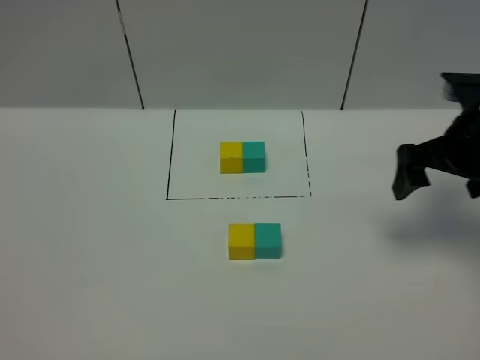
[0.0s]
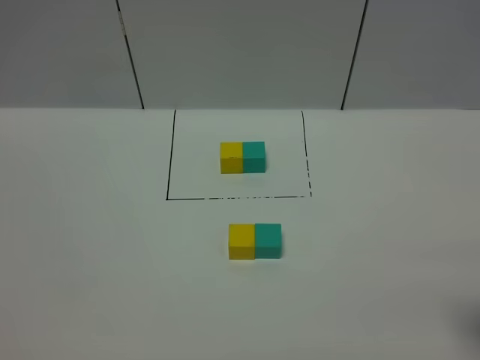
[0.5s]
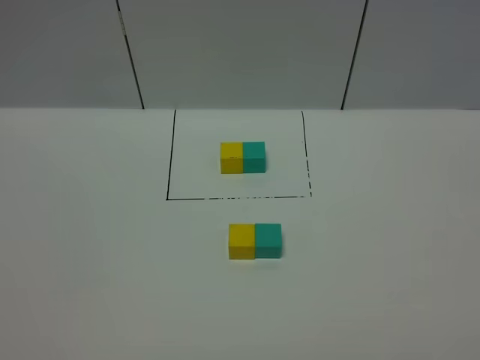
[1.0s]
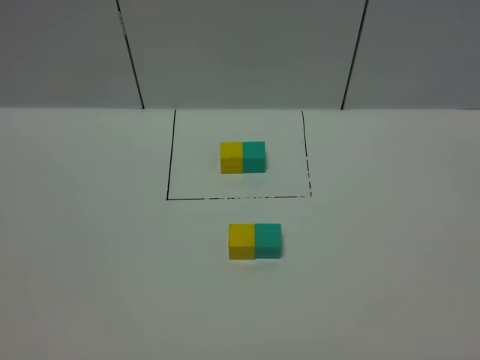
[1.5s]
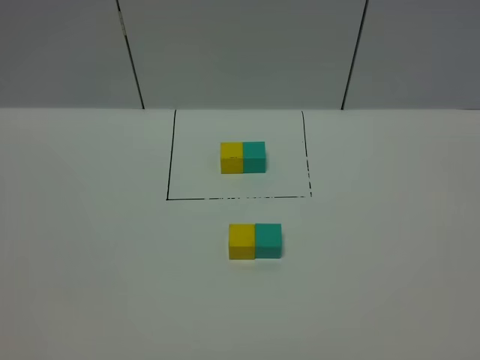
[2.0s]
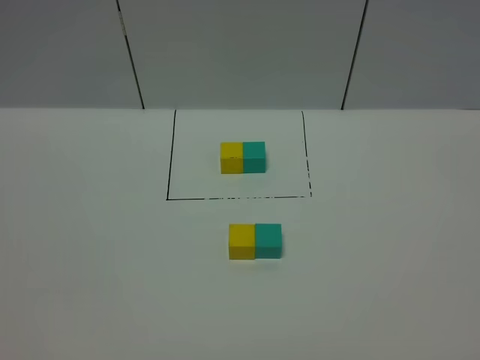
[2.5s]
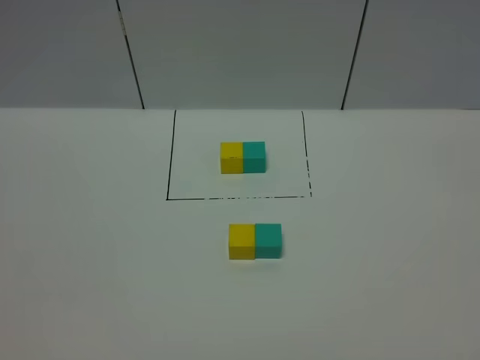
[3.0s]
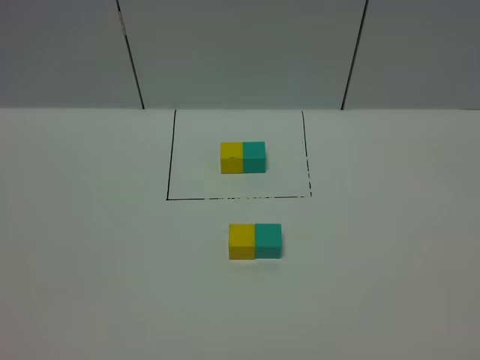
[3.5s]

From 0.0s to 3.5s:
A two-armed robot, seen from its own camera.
Task of the whole recording: According to the building block template in front, assemble the scattered blocks together.
From 0.0s to 2.0s: The right gripper travels backward by some 35 cm.
From 2.0s to 3.5s: Both grippers stay put.

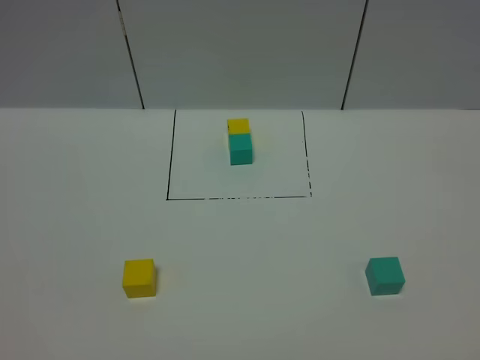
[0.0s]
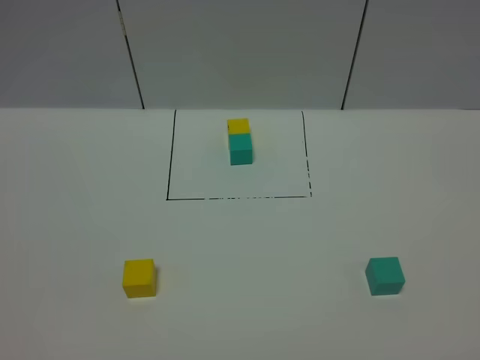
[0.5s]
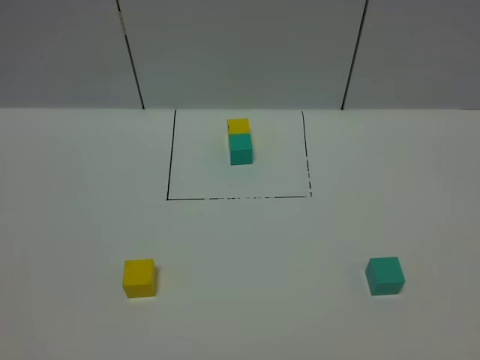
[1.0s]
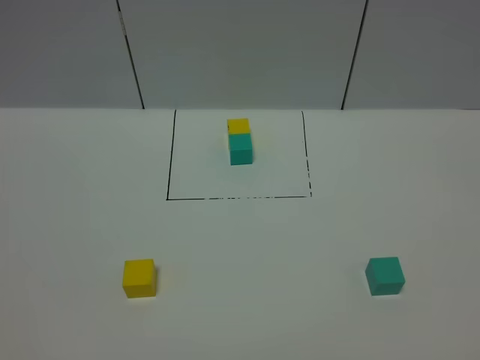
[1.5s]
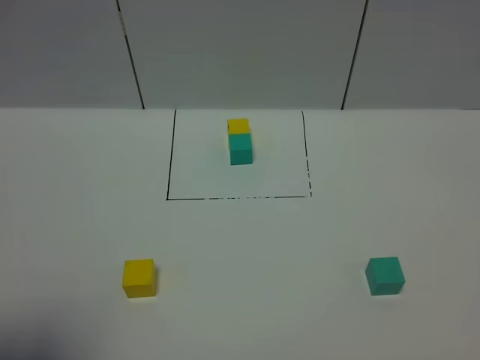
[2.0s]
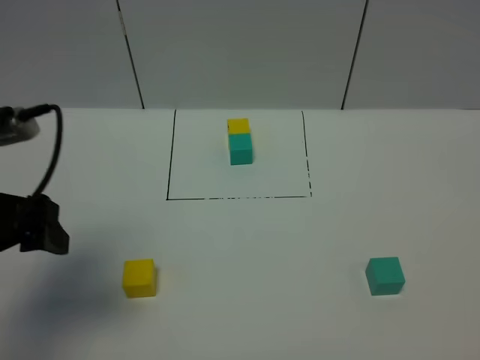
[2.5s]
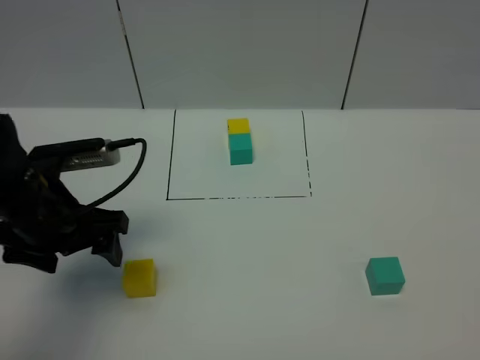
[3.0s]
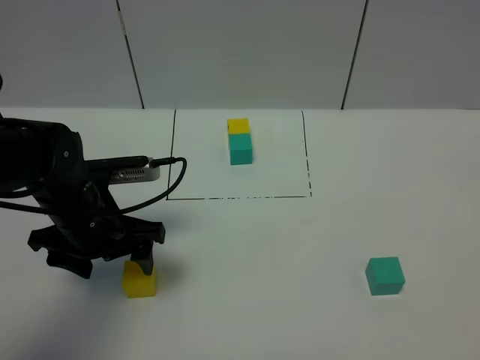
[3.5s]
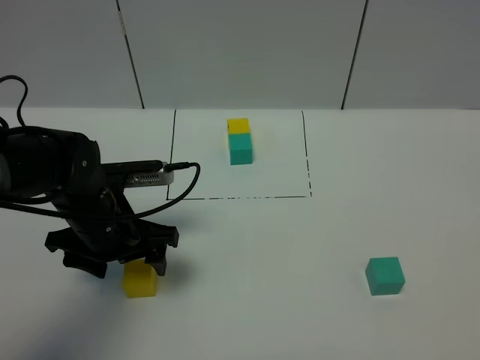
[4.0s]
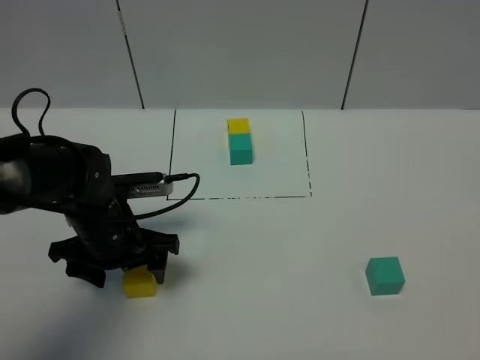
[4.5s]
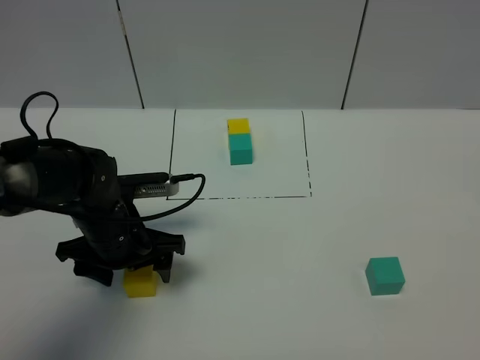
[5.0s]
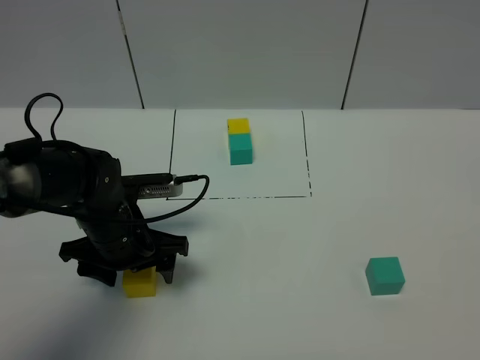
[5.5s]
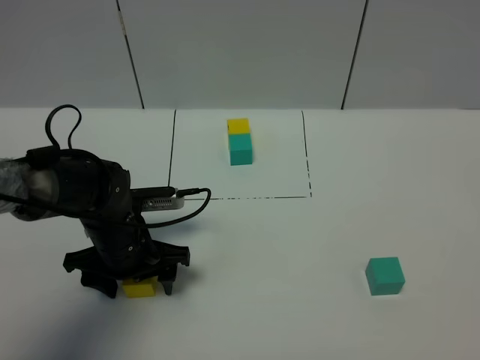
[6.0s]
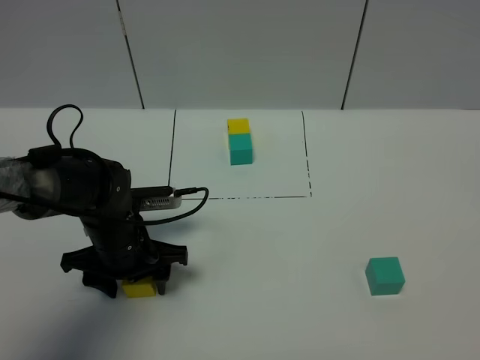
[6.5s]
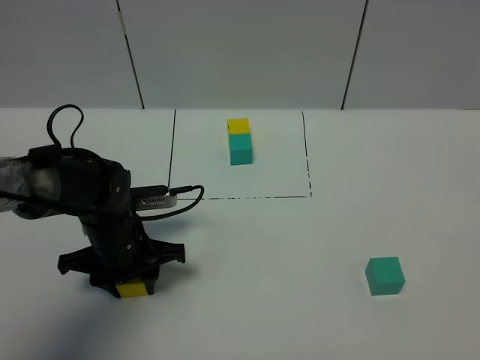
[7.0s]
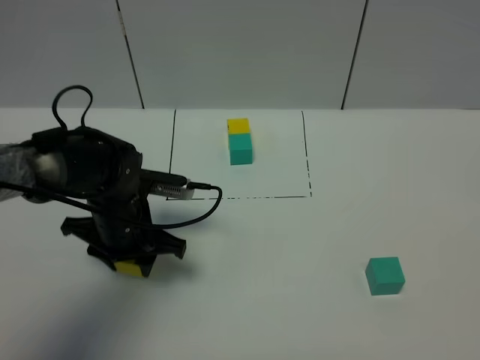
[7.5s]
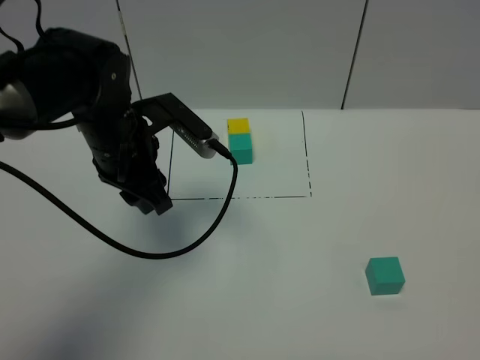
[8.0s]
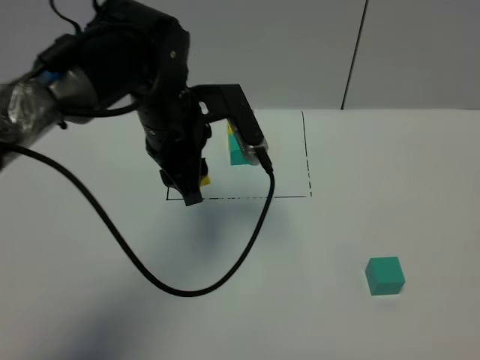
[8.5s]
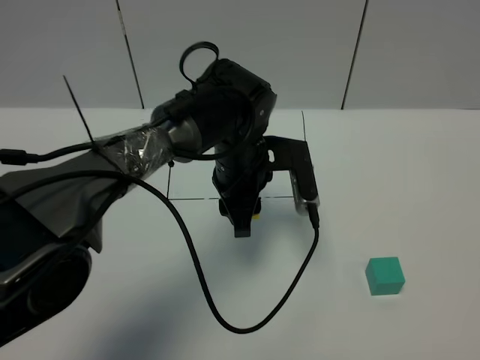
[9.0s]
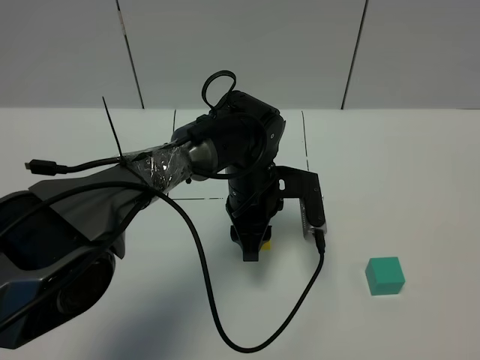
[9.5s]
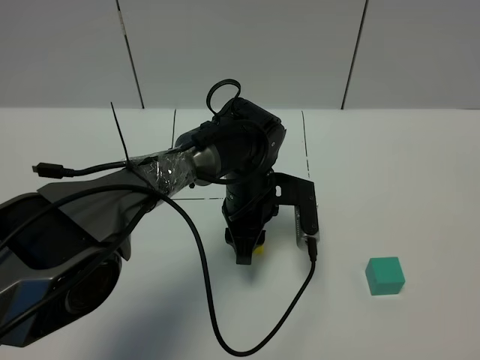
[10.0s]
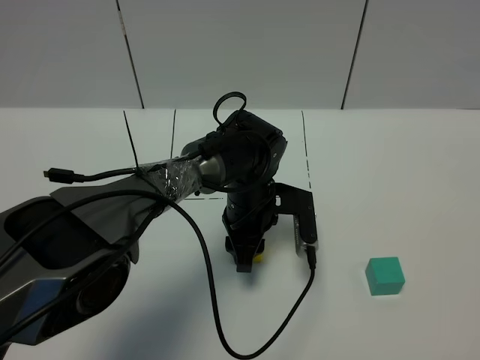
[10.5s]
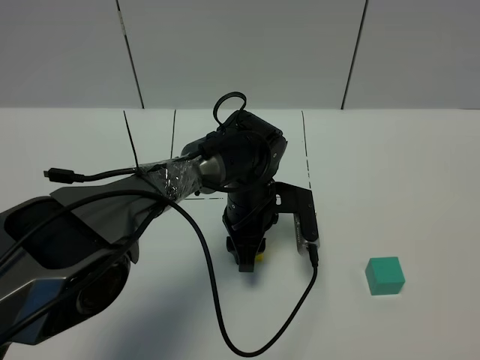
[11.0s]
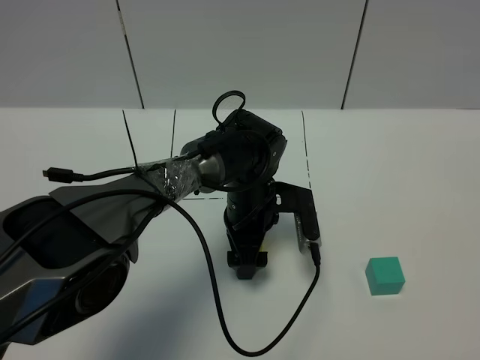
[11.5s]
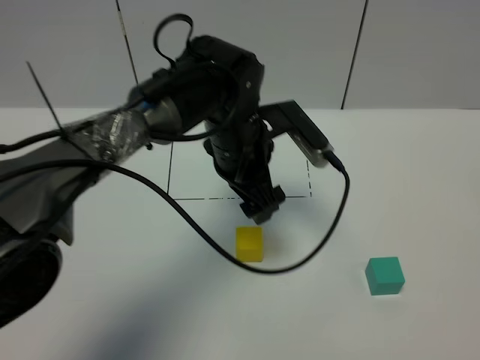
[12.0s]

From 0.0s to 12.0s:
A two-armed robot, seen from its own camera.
Task of the whole recording: According to the building block template in front, assemble the scattered blocks together.
Step, from 2.5s to 11.0s: Put the yellow cube in the center of the table.
From 0.0s to 2.0s: The left gripper moves forward and upward, some 15 cm.
From 2.0s to 4.0s: The left gripper is displaced forward, downward and to the right by some 30 cm.
From 4.0s to 6.0s: The left gripper is displaced downward by about 5 cm.
From 6.0s to 8.0s: The left gripper moves upward, some 15 cm, and closes.
From 8.0s to 10.0s: The left gripper travels to the right and downward by some 20 cm.
From 10.0s to 12.0s: The left gripper goes some 10 cm upward, and opens up.

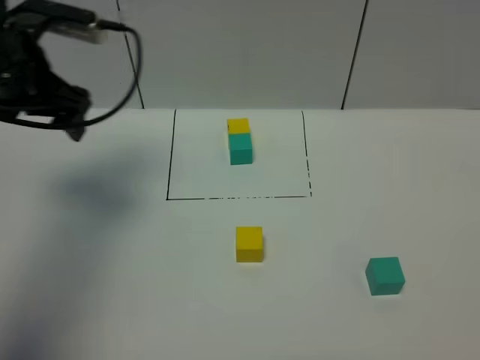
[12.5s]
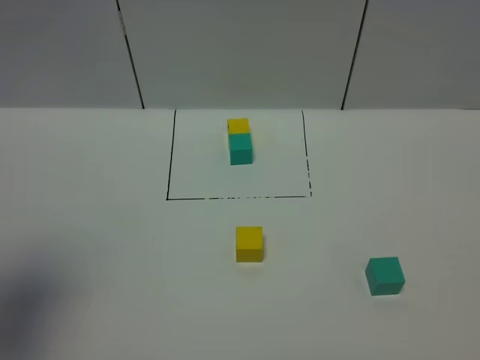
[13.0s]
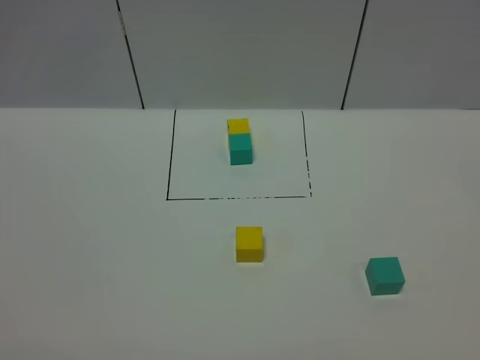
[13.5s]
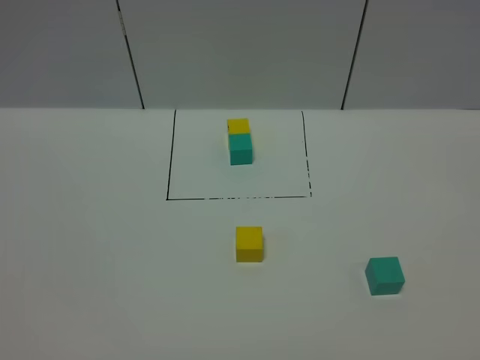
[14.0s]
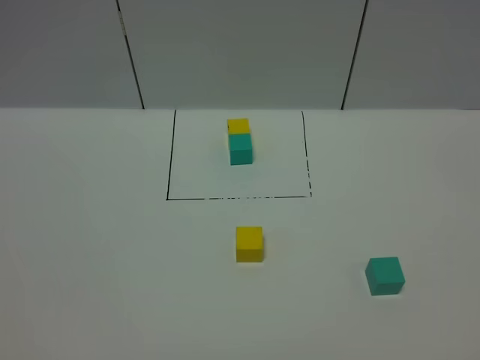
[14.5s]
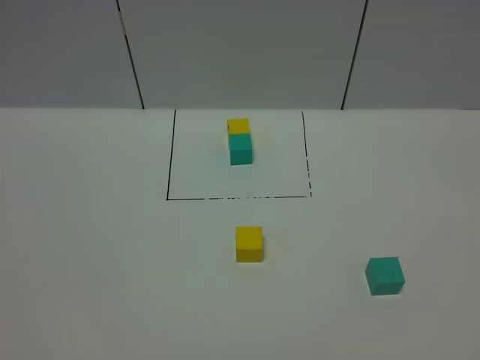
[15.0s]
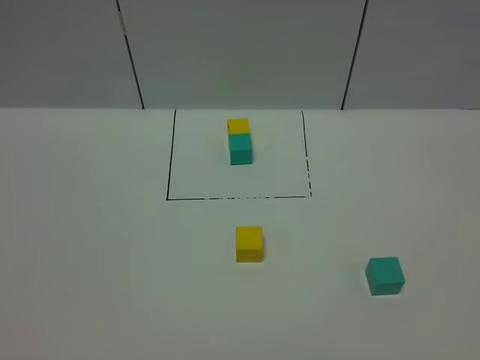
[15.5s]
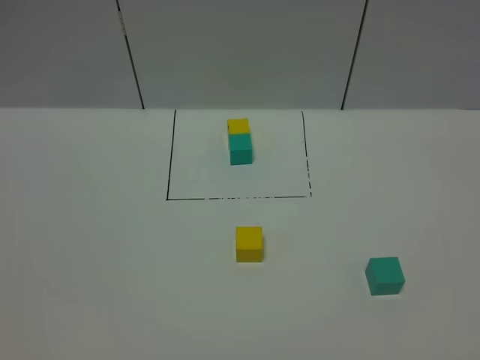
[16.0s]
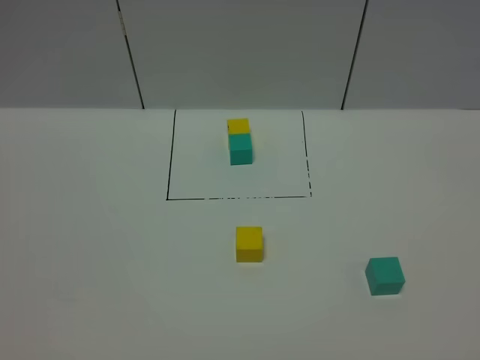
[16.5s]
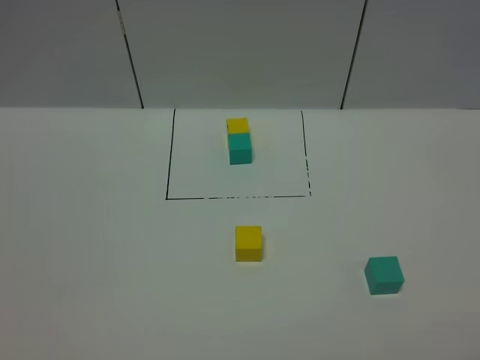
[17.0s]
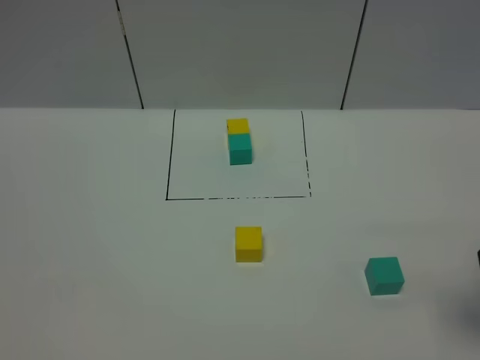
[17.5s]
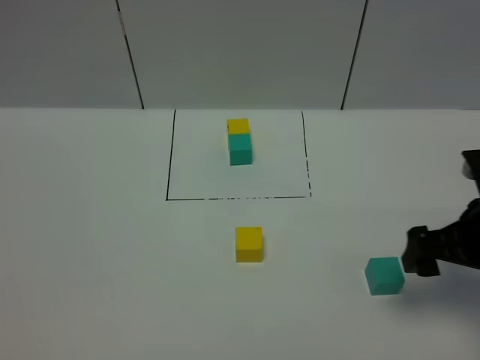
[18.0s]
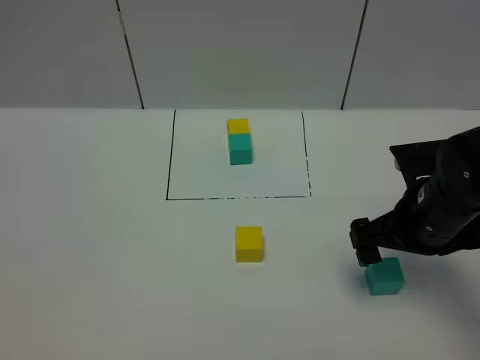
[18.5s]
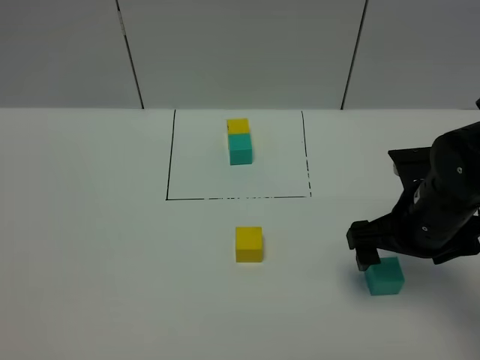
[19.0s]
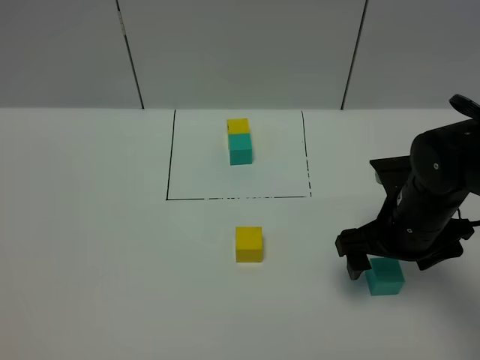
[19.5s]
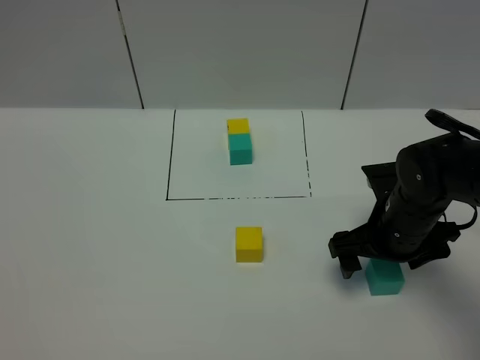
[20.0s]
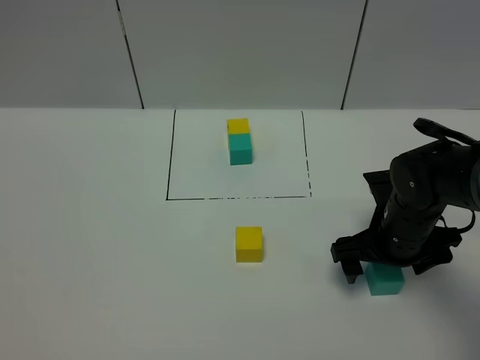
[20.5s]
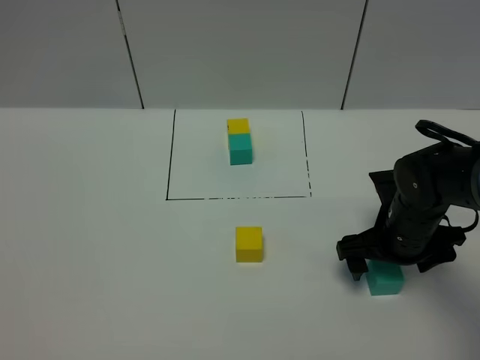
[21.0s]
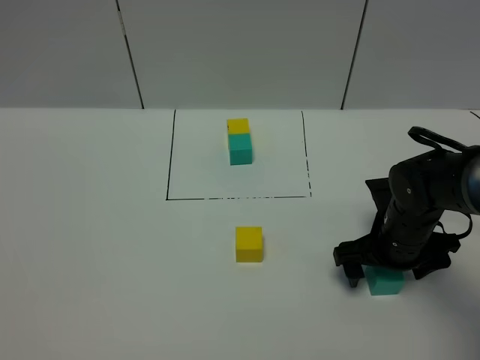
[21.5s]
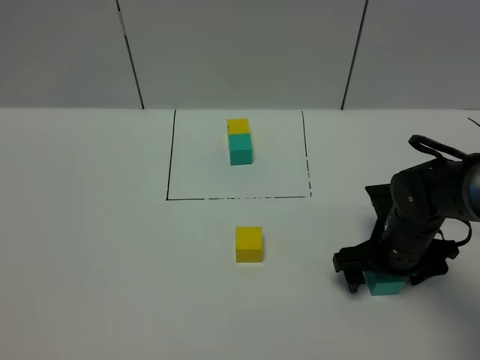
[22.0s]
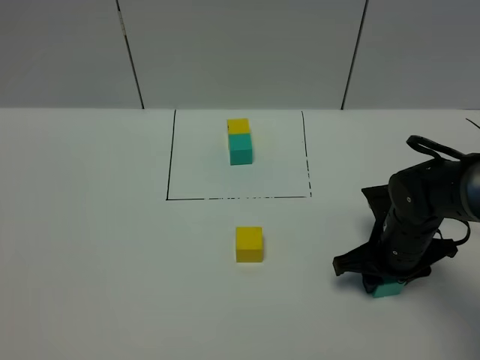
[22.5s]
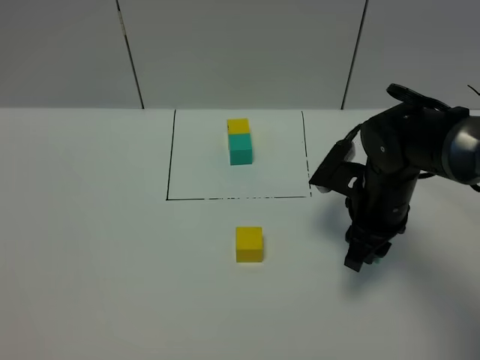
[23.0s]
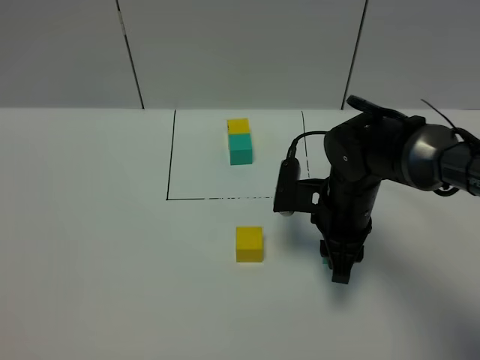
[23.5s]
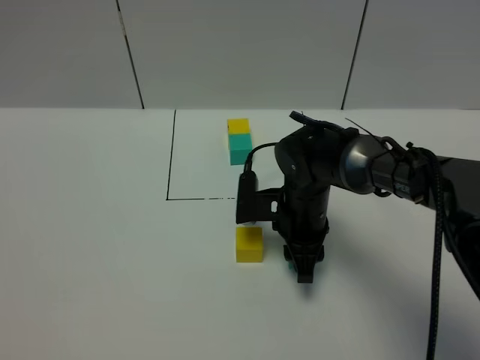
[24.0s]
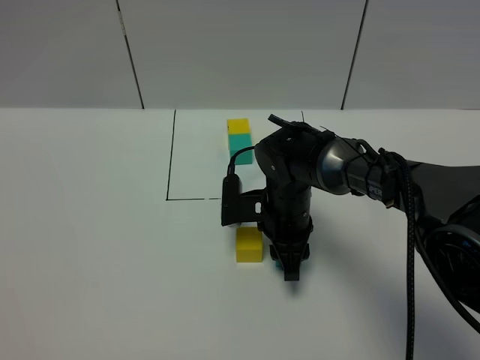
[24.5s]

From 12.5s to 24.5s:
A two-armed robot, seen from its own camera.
Task of the whole recording: According to the building block template in front, assemble the scattered blocks together.
From 12.5s to 14.5s: The left gripper travels backward by approximately 40 cm.
From 14.5s to 16.5s: The two grippers keep their place.
From 16.5s to 18.5s: The right gripper shifts about 30 cm forward and to the left.
From 18.5s to 20.5s: The right gripper is displaced downward by some 5 cm.
From 20.5s to 22.5s: The right gripper closes up.
From 22.5s to 24.5s: The right gripper goes about 15 cm to the left.
